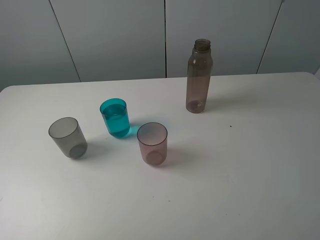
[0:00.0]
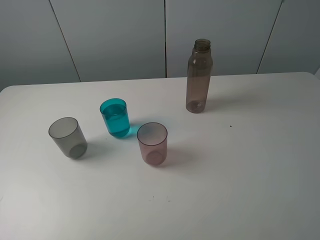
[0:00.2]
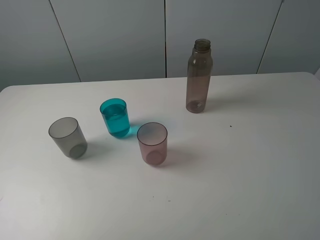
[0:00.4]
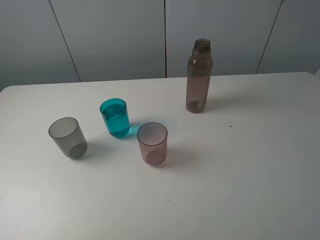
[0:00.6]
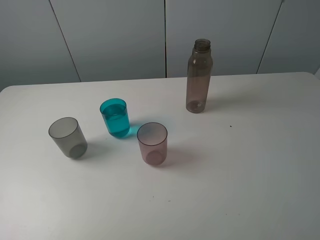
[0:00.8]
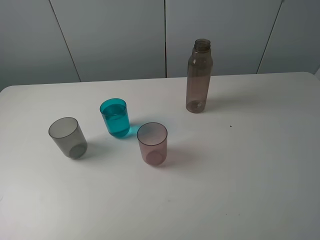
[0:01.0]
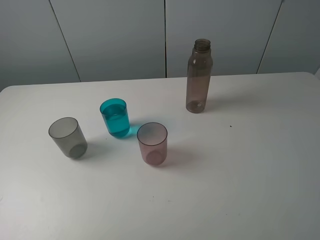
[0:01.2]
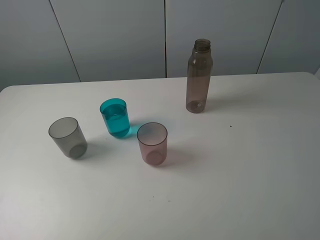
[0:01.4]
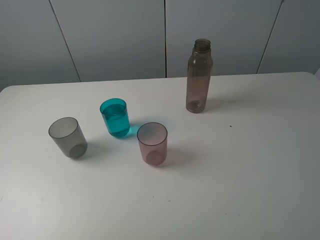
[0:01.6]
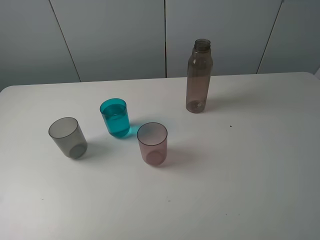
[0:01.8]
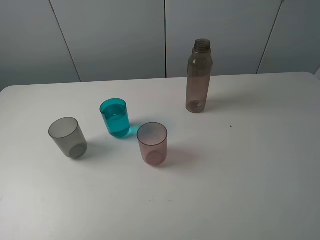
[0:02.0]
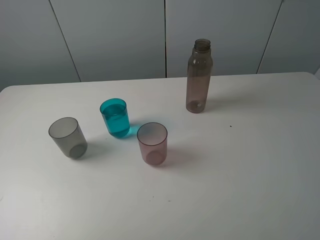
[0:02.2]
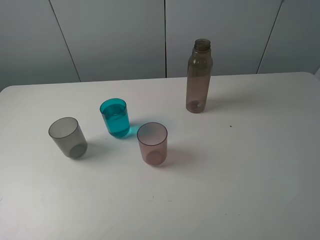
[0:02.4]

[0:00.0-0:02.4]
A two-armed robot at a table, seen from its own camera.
Task of the whole recording: pick up the bottle filled with water and pour water into the middle cup of the three cups.
0:00.0 to 0:02.4: Both grippers stay about where they are.
